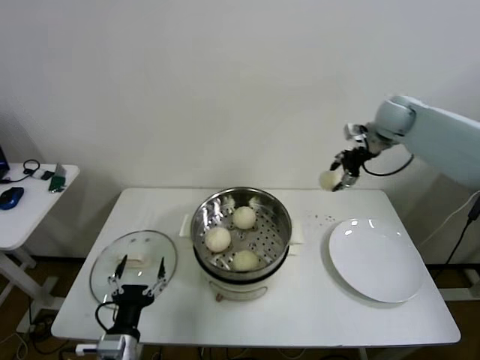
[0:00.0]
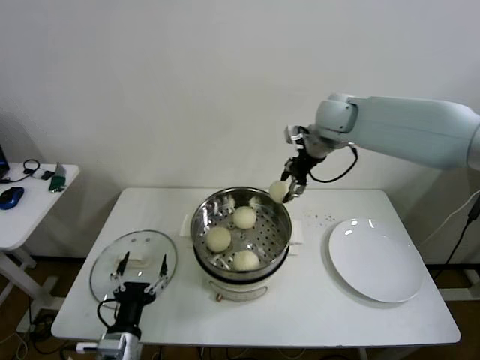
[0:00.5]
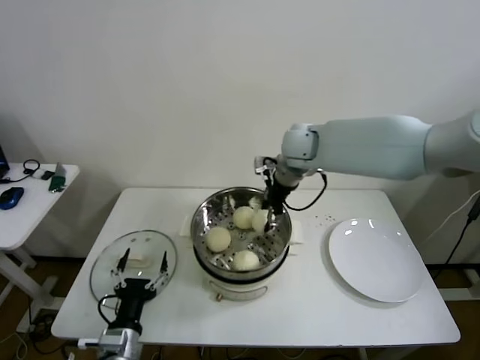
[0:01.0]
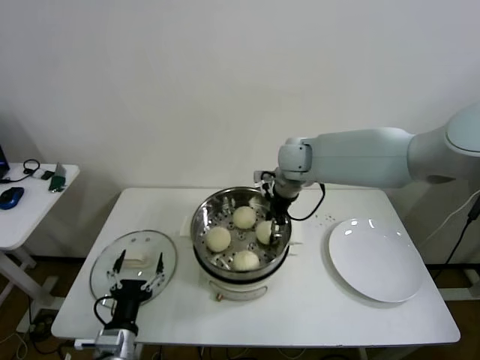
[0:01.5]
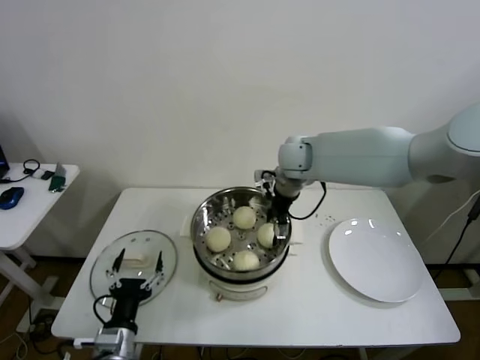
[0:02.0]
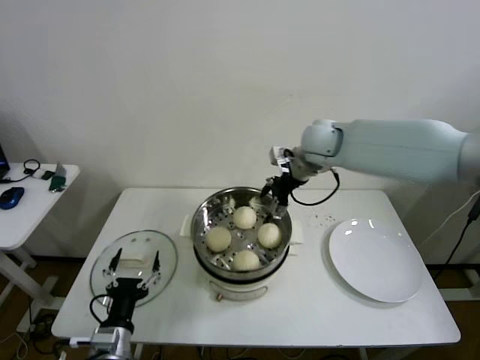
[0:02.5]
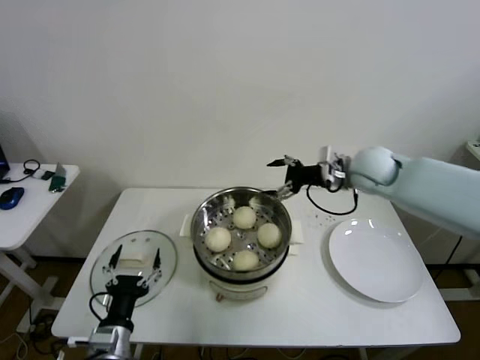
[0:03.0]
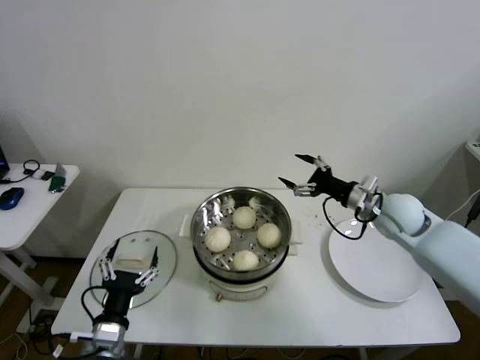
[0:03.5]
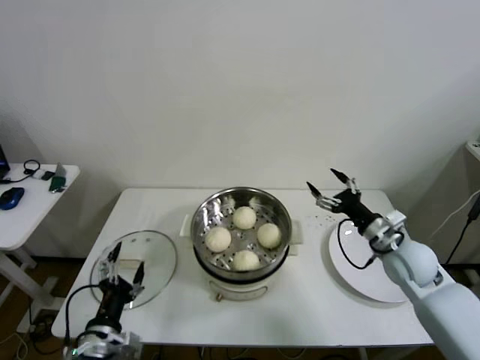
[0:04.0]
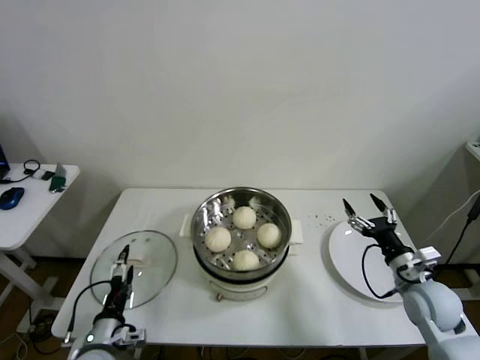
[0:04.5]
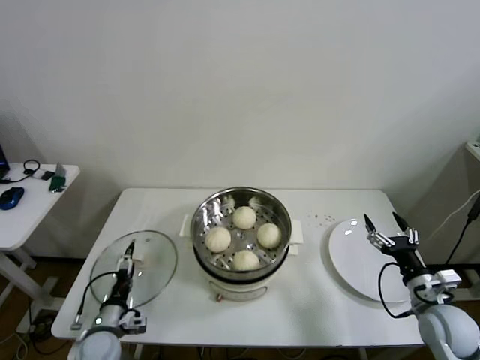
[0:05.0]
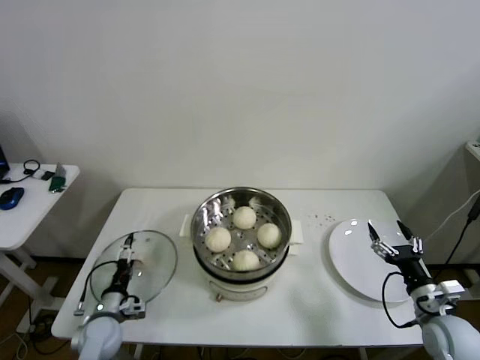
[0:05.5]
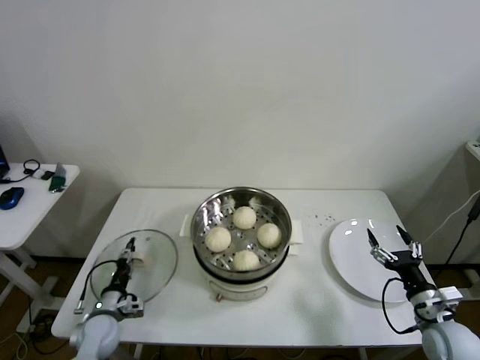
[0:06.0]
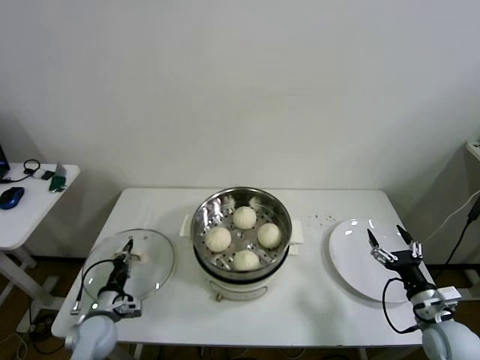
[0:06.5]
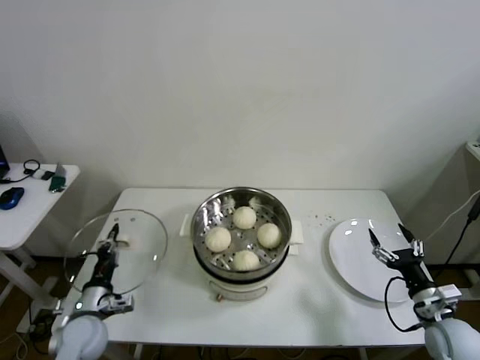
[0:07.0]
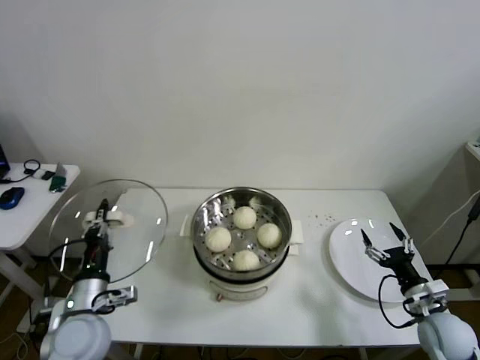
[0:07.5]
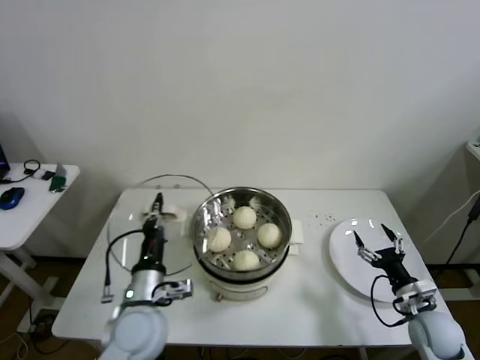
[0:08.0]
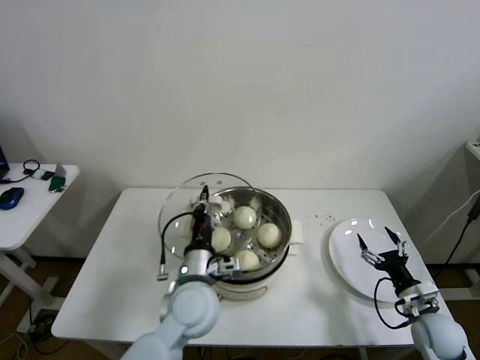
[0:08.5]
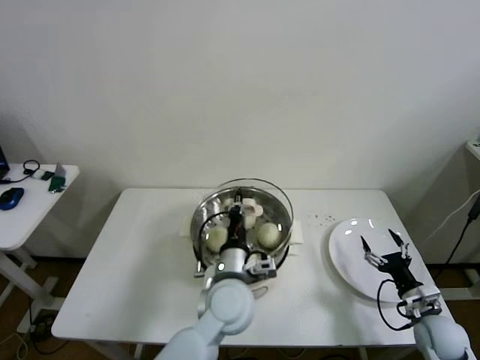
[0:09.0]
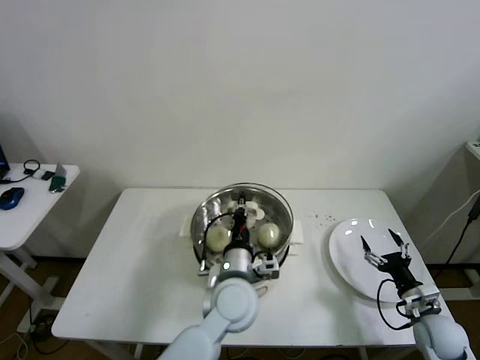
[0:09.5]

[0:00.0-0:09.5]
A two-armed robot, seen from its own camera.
Step, 0:00.0 to 0:02.0: Place the baozi on the steamer with right gripper.
Step, 0:02.5 to 0:06.0: Grasp the pot lid with left gripper.
0:00.0 to 0:02.0: The right gripper heads to the left, covering roughly 20 cm, and opens up.
0:02.0 to 0:04.0: The right gripper shifts some 35 cm to the right, backward and downward.
0:04.0 to 0:05.5: The right gripper moves backward, downward and to the right, some 15 cm. The left gripper travels downward, forward and to the left by some 20 cm.
0:05.5 to 0:07.5: The left gripper heads upward, covering approximately 15 cm, and closes.
0:07.5 to 0:09.5: The left gripper goes about 30 cm to the right.

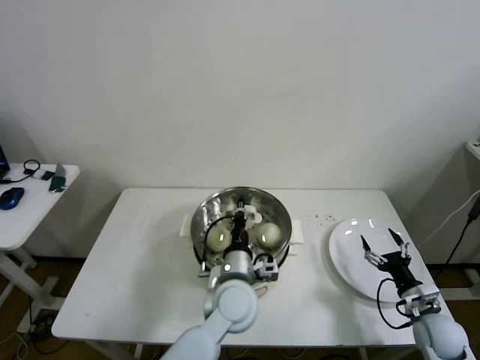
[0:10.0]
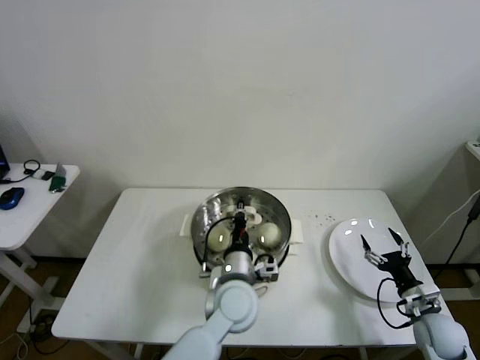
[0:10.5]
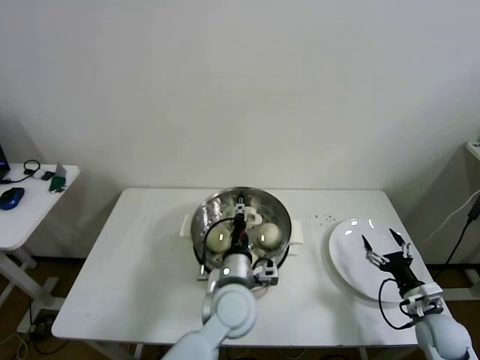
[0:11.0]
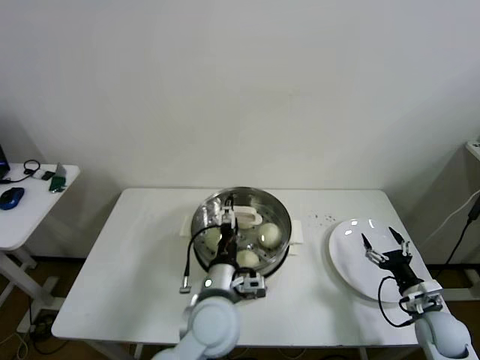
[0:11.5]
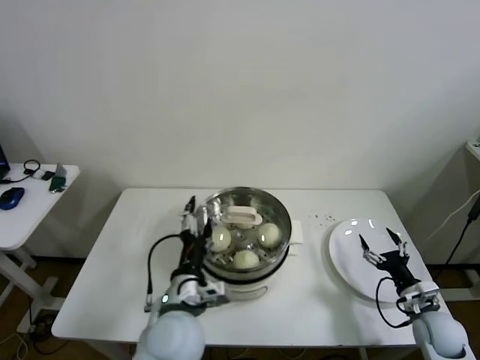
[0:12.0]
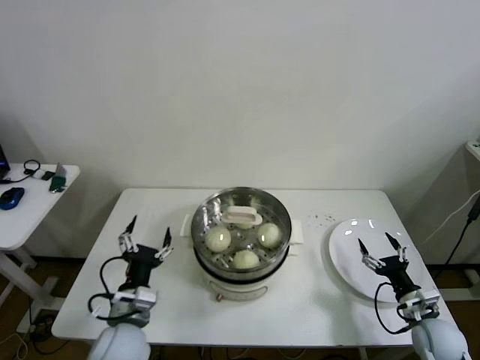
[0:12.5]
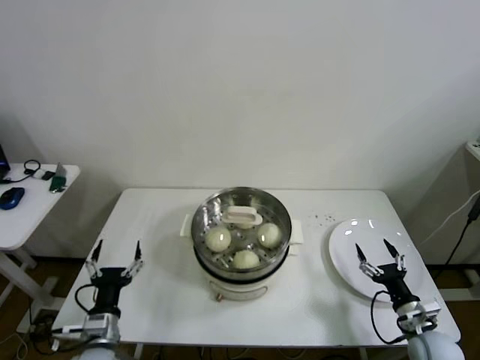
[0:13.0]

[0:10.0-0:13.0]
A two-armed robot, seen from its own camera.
0:10.0 to 0:11.5: The left gripper opens.
0:11.5 to 0:13.0: The left gripper shifts about 25 cm to the left and downward.
